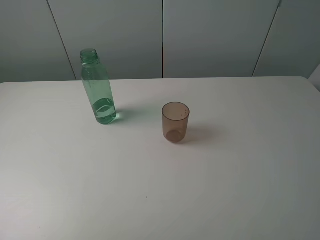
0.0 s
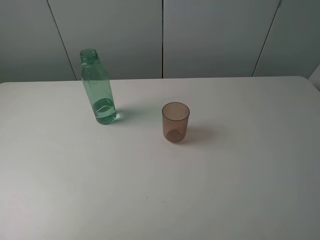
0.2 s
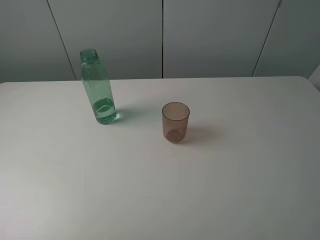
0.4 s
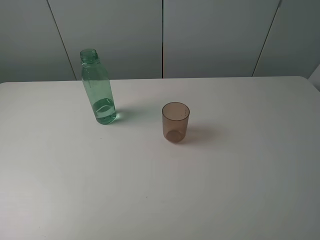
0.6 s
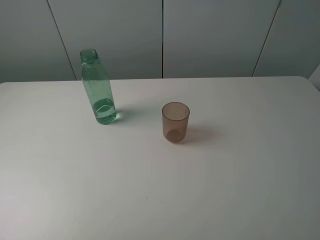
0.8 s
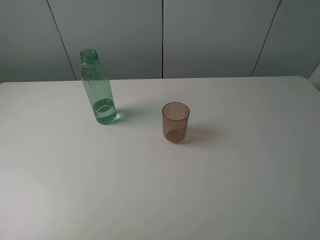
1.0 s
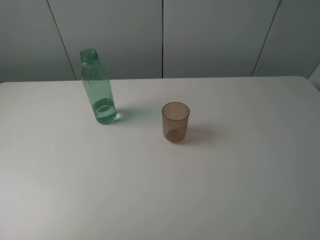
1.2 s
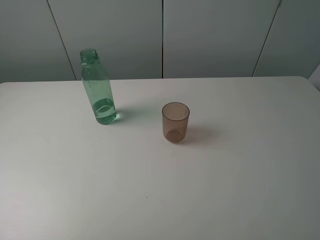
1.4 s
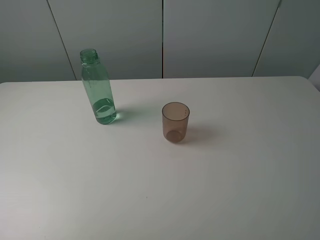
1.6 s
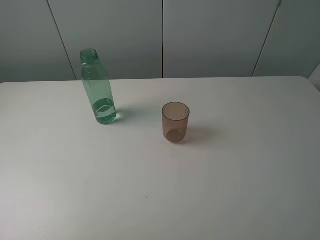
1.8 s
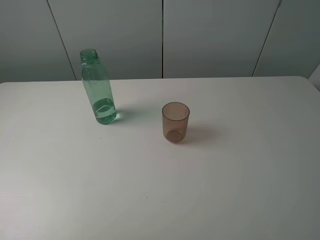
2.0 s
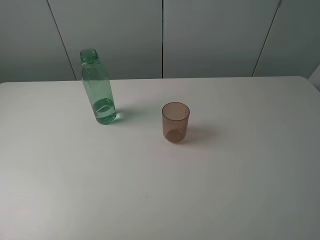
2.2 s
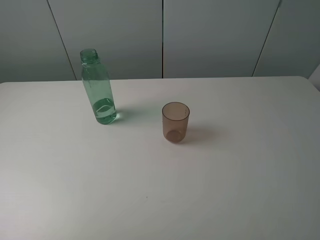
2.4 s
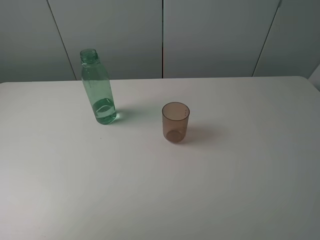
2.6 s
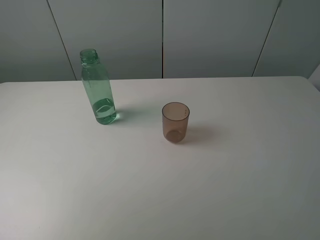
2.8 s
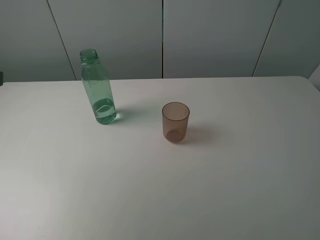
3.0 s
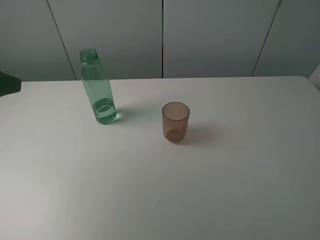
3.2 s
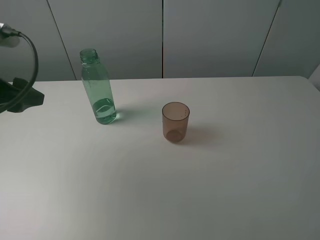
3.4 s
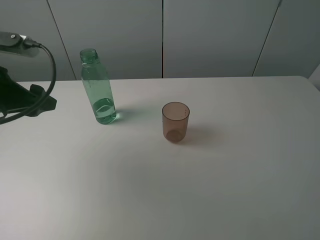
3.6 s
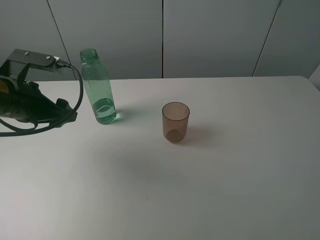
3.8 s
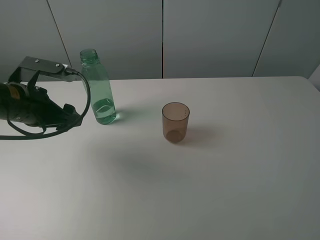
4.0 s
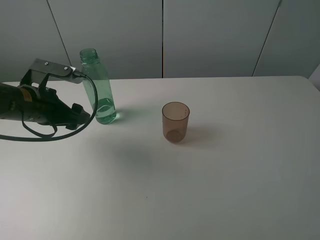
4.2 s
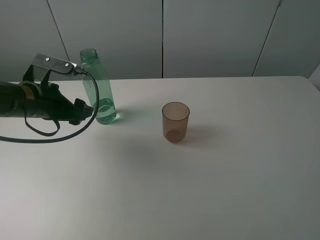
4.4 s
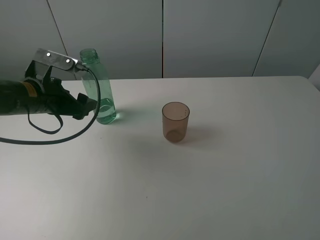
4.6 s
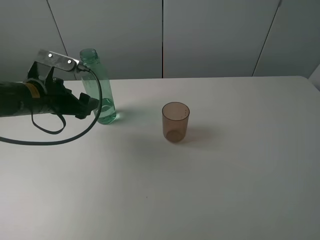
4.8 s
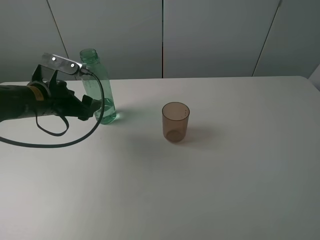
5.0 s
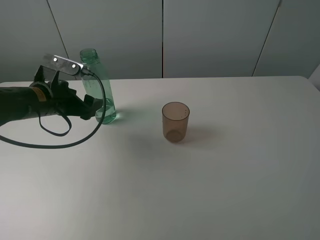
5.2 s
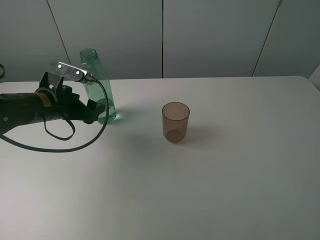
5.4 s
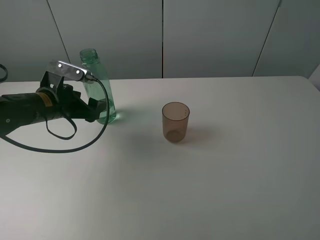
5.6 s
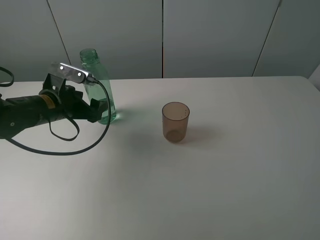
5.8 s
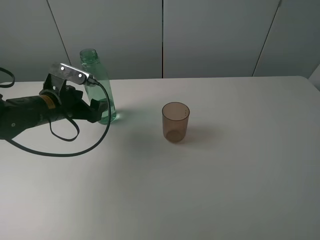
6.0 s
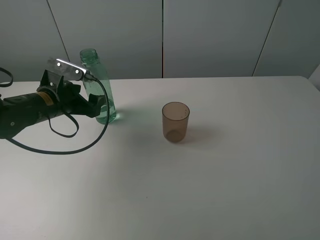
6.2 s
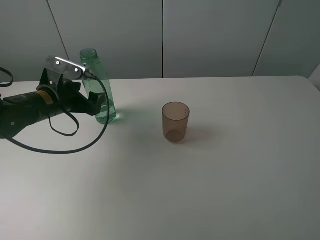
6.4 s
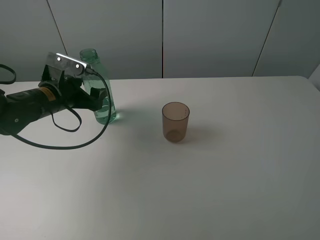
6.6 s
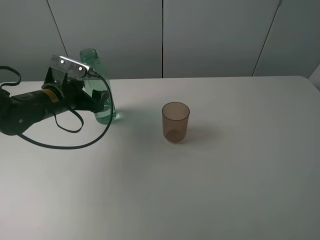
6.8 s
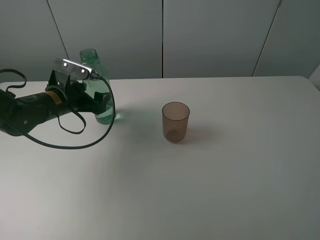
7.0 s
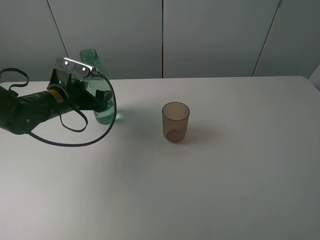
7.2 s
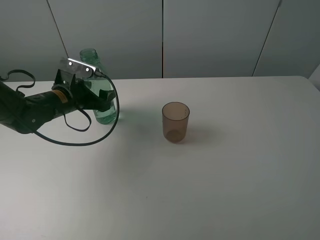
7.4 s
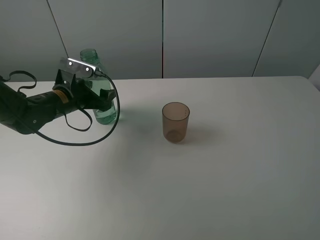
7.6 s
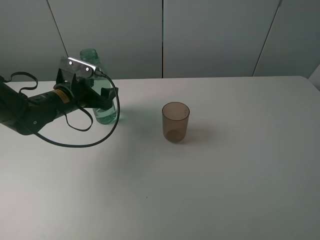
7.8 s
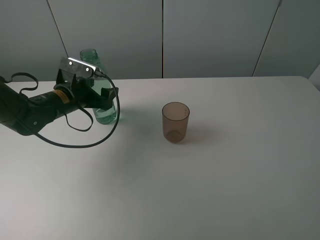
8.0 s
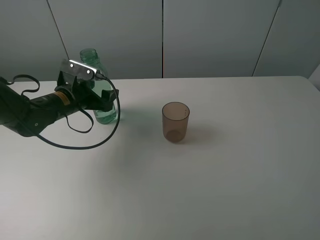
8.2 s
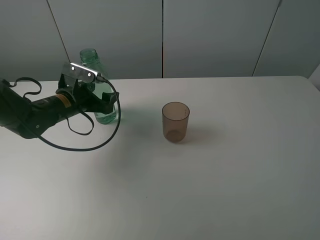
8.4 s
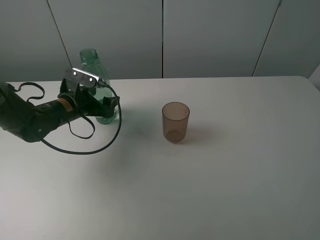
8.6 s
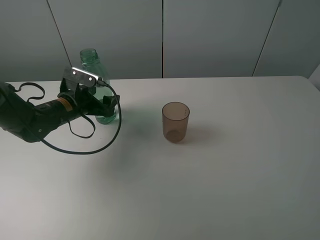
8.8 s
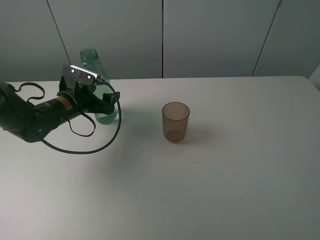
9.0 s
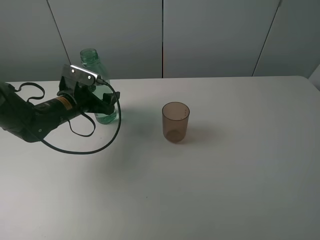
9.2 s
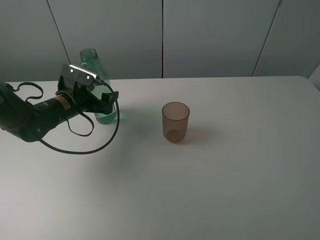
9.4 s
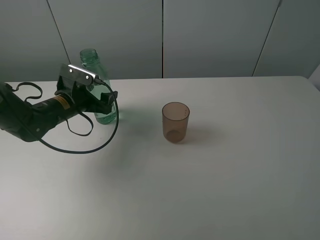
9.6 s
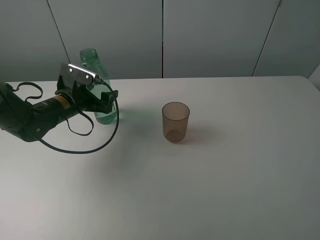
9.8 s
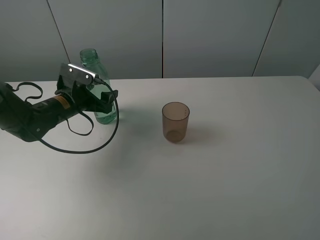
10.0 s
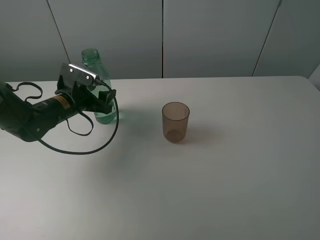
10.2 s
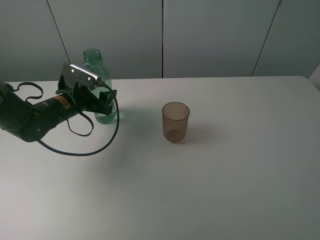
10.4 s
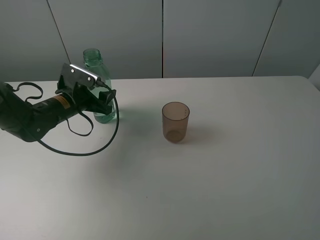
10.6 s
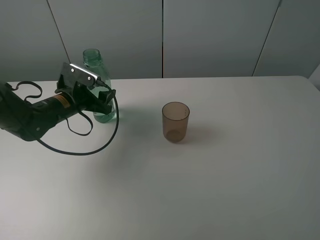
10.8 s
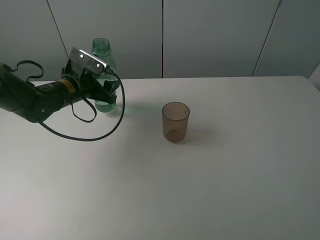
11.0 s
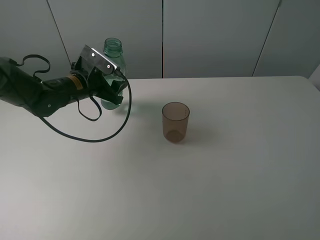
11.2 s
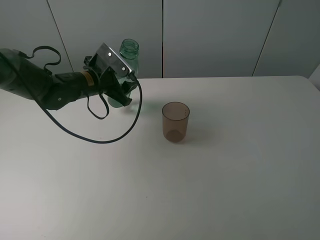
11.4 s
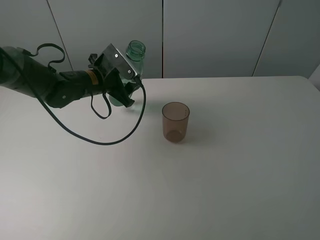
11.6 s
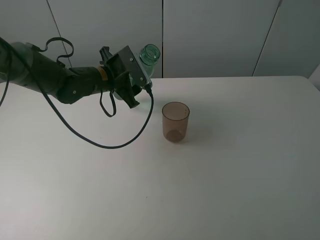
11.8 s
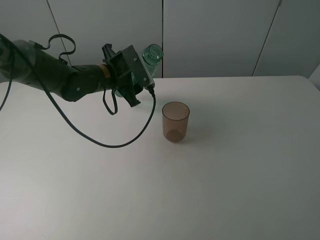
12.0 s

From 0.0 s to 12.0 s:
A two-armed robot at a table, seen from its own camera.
Task of the whole recording: pick up the bottle filled with water and pour it into the pink cup.
Step, from 0.0 s to 10.4 s: Grasp the green bottle with the left gripper.
From 0.0 s to 1.6 s: The two grippers keep their place.
From 3.0 s to 4.4 s: The left gripper travels downward, forward and to the right by approximately 20 cm.
From 4.4 s to 6.0 s: The left gripper shifts by some 5 cm.
From 6.0 s to 9.0 s: The grippers move only a little.
From 9.0 s to 10.4 s: The left gripper closes up.
From 10.4 s to 12.0 s: The left gripper moves to the right and upward, approximately 10 cm.

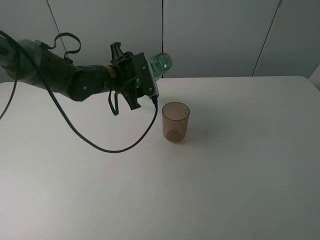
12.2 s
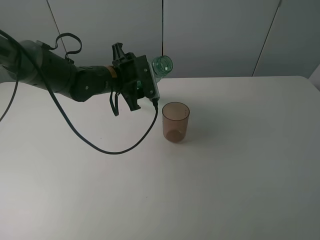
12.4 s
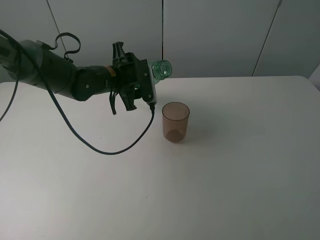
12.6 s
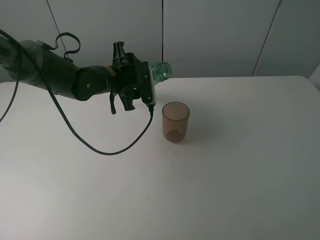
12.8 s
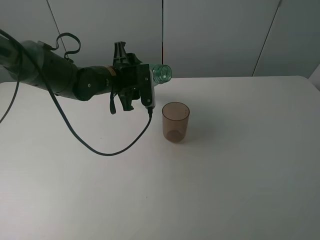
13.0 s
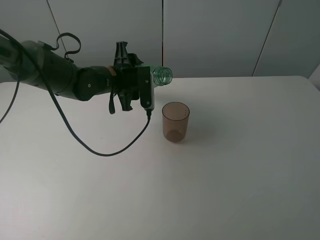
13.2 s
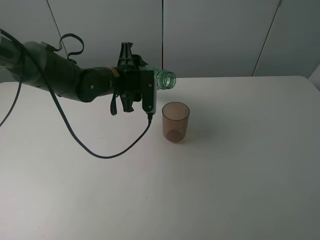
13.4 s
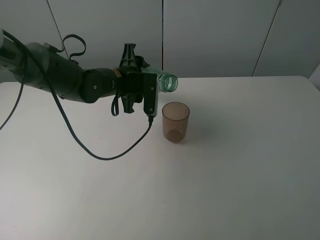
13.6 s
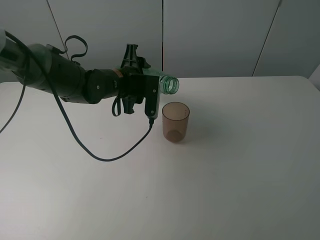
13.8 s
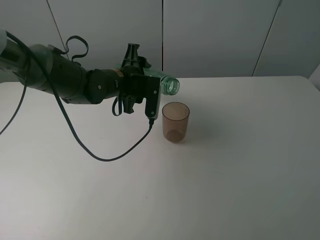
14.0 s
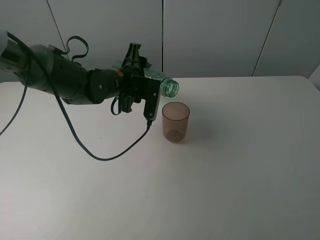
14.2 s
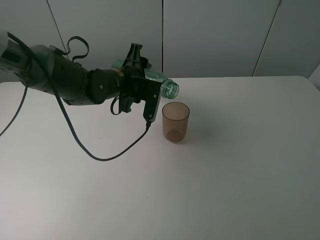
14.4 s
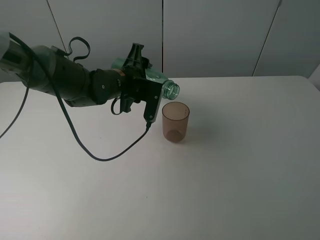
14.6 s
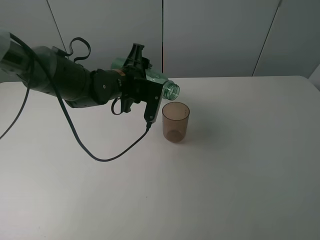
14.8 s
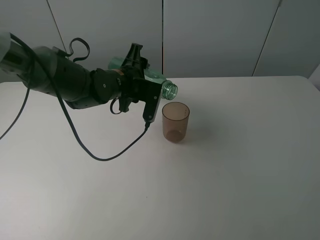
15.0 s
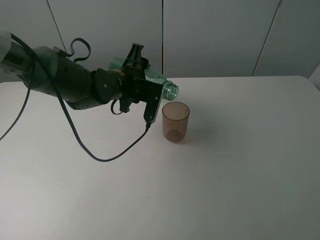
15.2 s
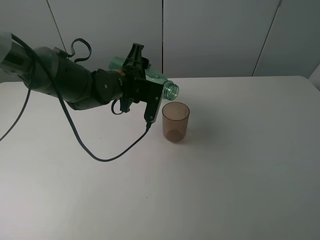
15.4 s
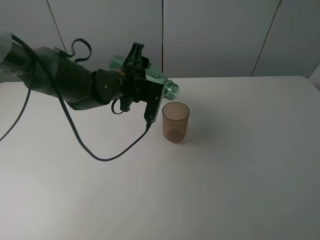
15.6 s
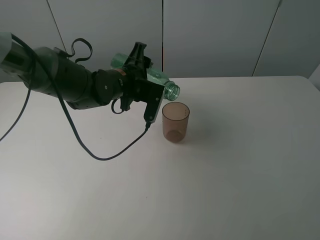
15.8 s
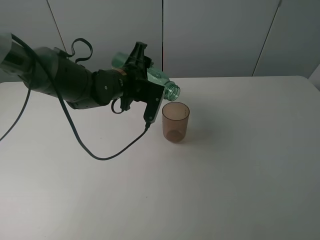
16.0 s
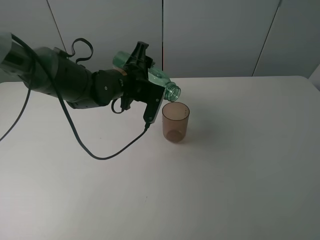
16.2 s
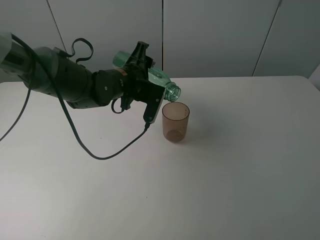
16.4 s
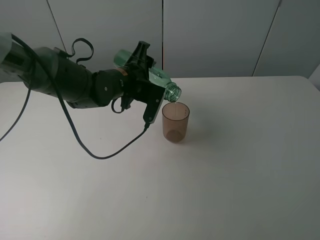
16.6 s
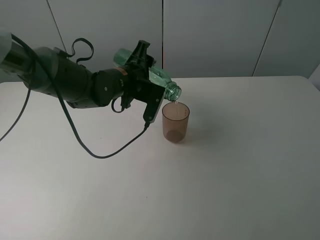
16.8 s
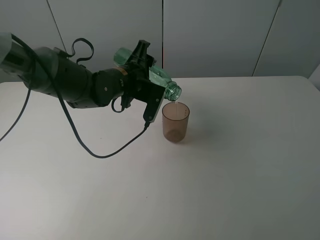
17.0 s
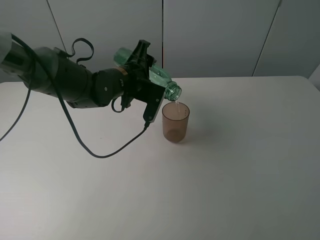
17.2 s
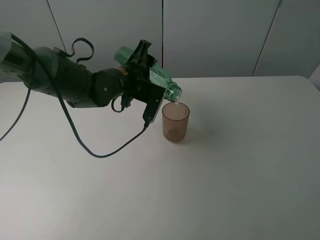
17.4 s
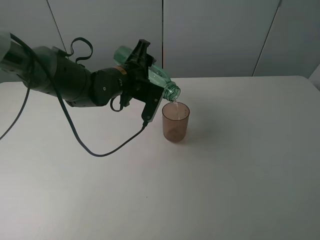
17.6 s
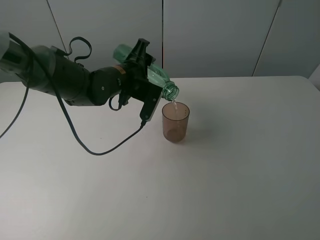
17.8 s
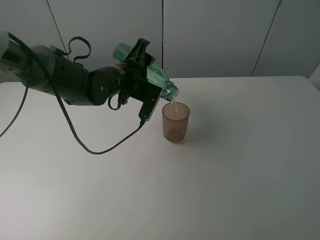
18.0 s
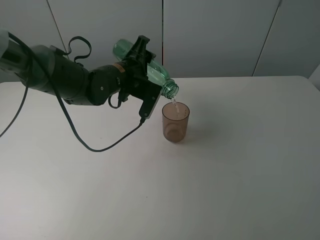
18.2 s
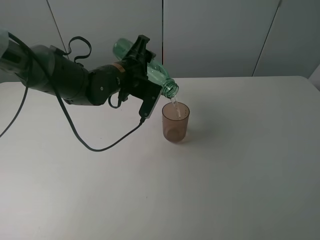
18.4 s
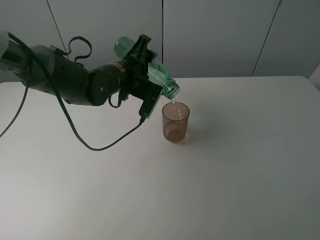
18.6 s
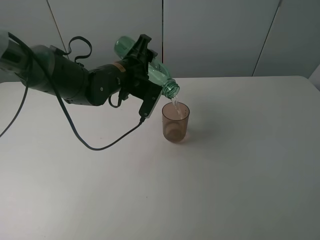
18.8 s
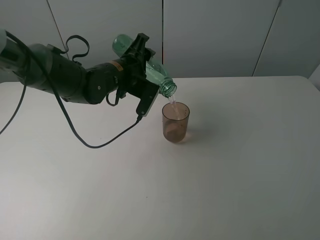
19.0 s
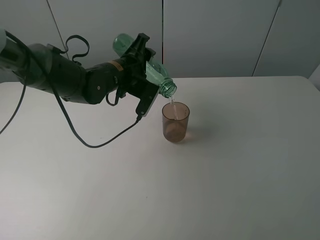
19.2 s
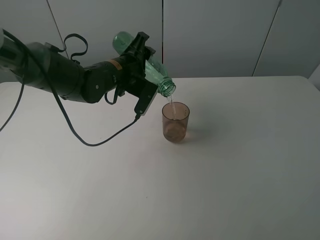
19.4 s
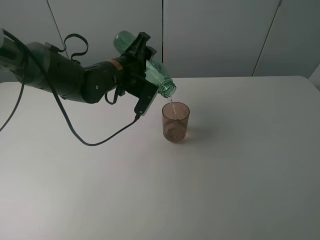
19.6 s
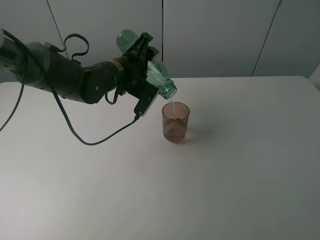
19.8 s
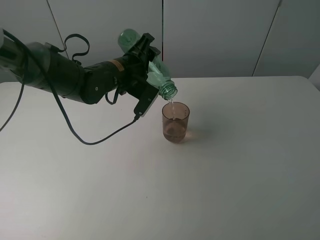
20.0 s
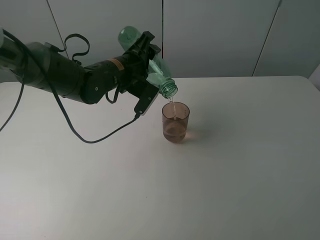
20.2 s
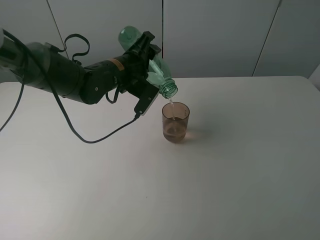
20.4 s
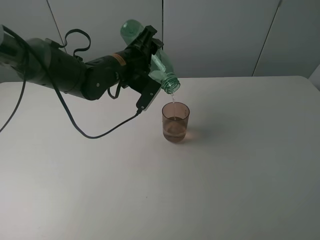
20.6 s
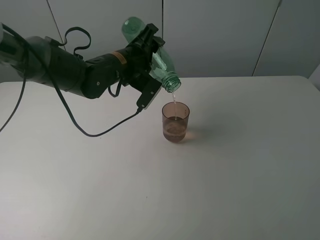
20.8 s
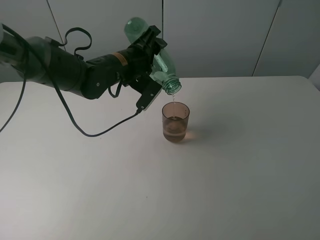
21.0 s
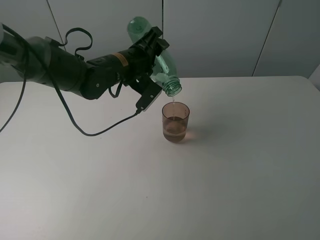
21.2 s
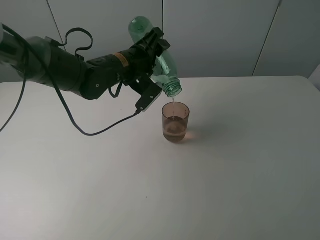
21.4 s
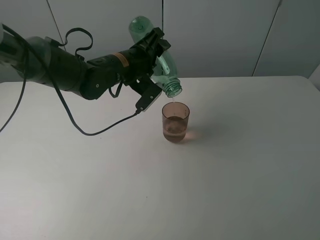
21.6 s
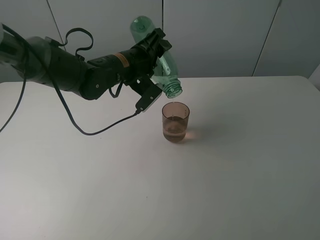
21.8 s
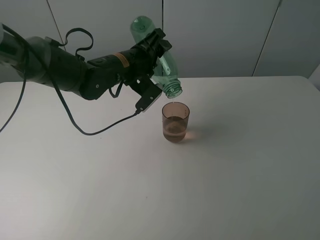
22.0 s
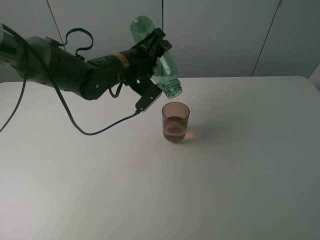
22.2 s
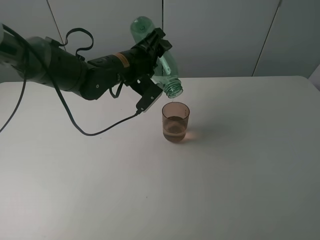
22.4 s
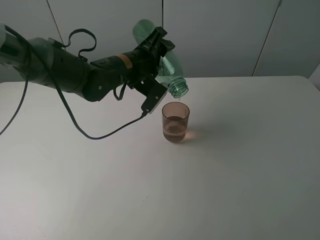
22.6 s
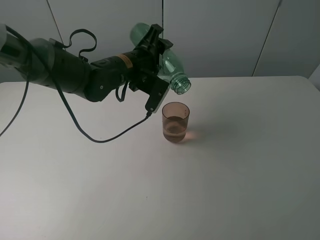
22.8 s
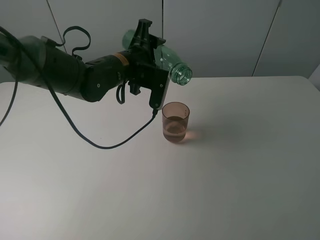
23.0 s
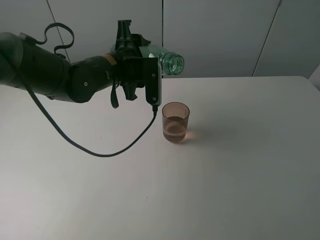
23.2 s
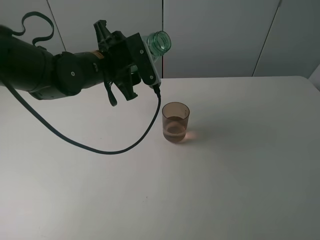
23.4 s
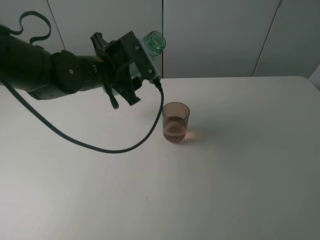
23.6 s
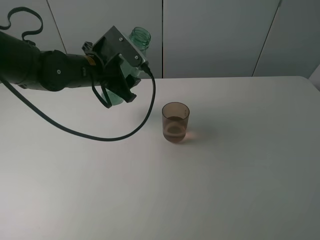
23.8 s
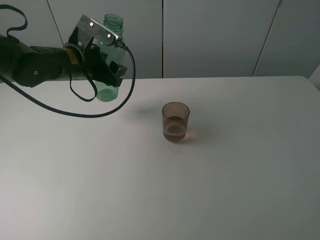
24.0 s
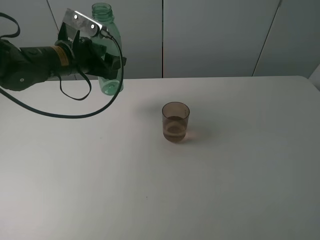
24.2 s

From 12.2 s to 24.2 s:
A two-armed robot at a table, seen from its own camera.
Task of the whole recording: pick up the bottle filled with water and pour it into the pink cup.
Step, from 12.2 s to 23.2 s: Pour water from green bottle to pink cup with the left gripper.
From 13.8 s to 16.6 s: The grippers stay close to where they were, moving slightly.
From 16.6 s to 19.8 s: The grippers make only small movements.
From 19.8 s to 22.6 s: The grippers make only small movements.
From 22.6 s to 24.2 s: The left gripper shifts some 10 cm to the left.
